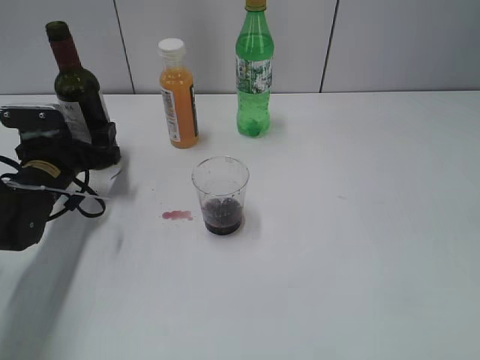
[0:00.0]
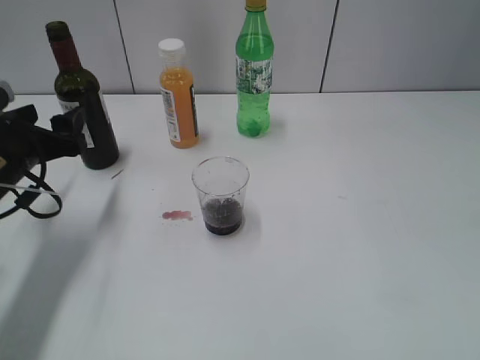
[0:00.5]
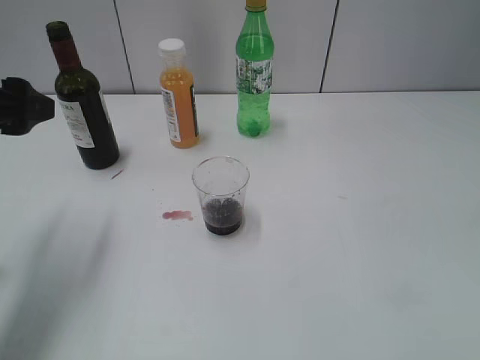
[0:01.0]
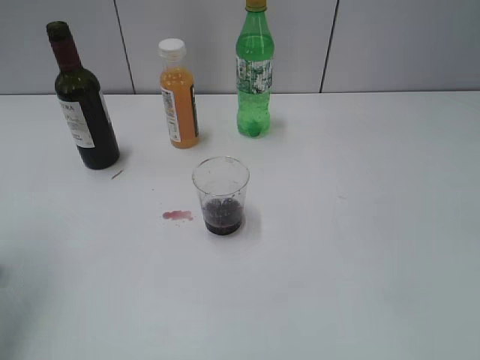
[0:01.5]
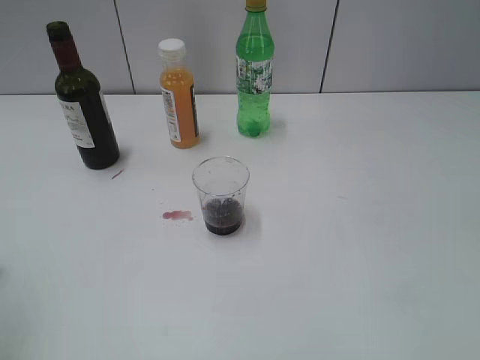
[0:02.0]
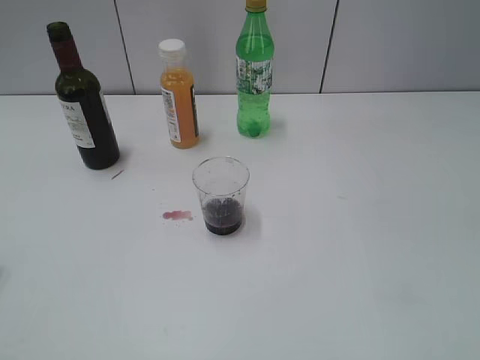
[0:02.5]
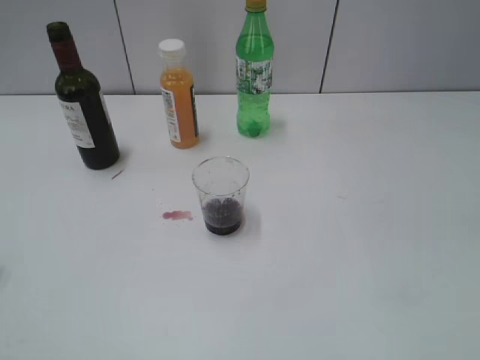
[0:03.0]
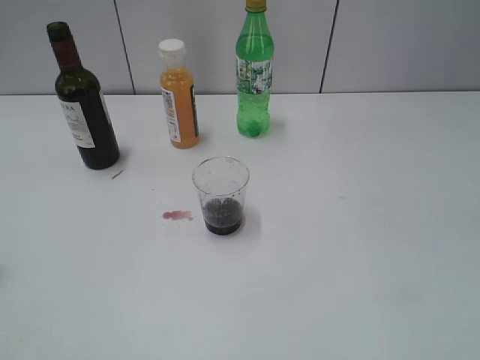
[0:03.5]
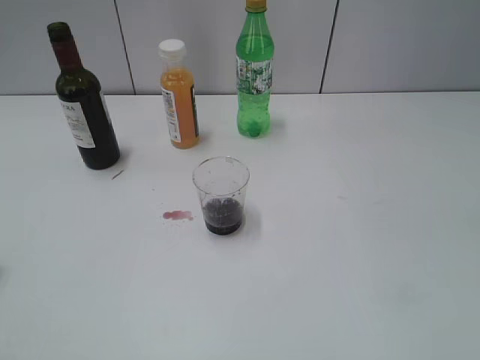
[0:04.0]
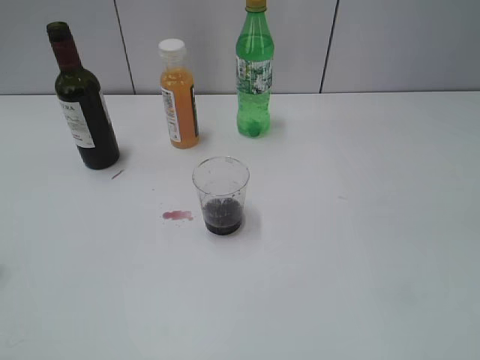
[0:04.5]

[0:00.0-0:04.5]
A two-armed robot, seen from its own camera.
0:00.0 to 0:02.0: The left gripper travels upward and backward by approximately 35 cm.
